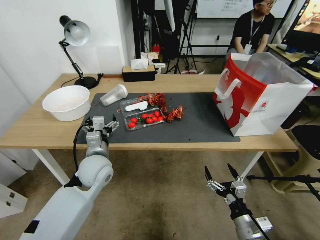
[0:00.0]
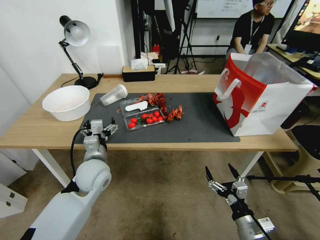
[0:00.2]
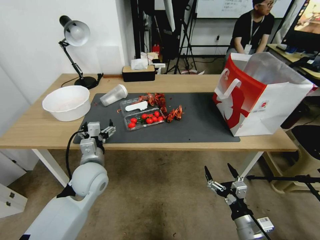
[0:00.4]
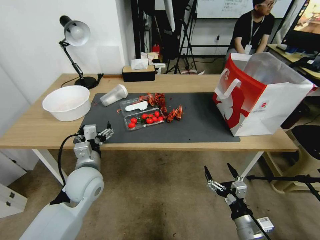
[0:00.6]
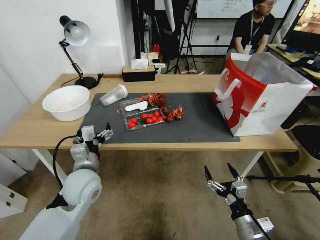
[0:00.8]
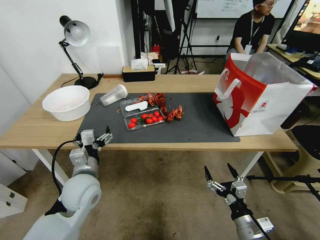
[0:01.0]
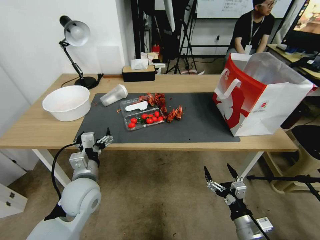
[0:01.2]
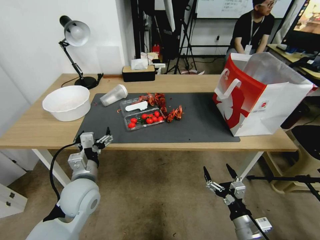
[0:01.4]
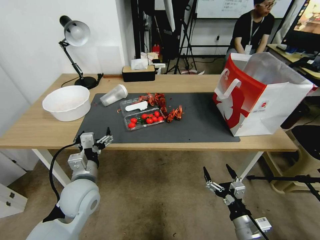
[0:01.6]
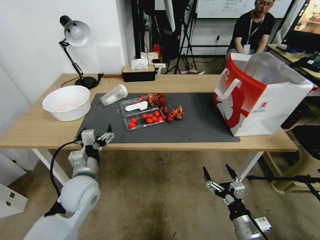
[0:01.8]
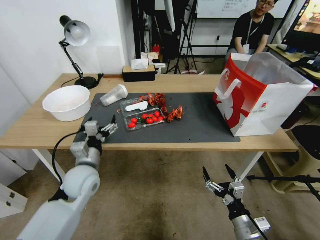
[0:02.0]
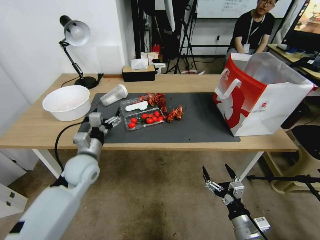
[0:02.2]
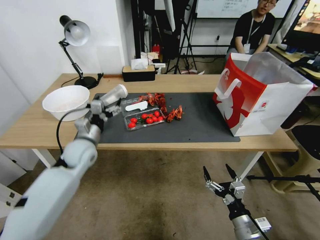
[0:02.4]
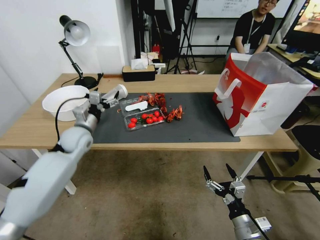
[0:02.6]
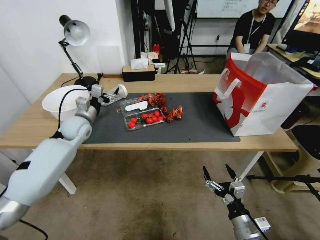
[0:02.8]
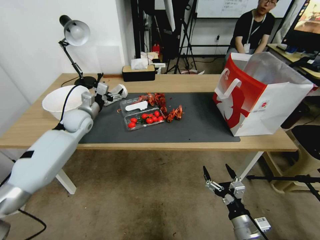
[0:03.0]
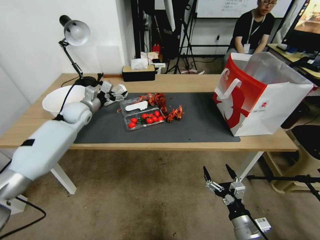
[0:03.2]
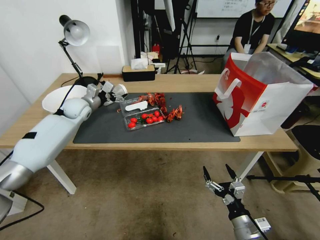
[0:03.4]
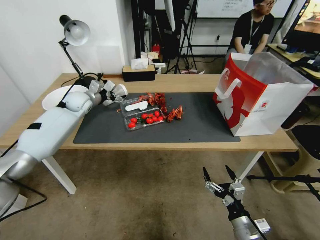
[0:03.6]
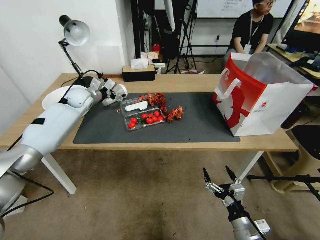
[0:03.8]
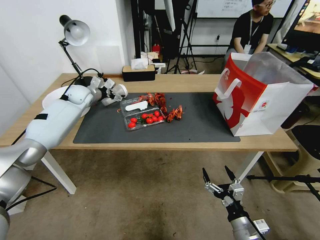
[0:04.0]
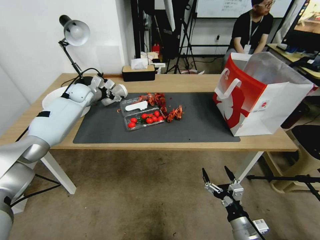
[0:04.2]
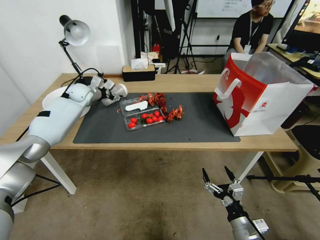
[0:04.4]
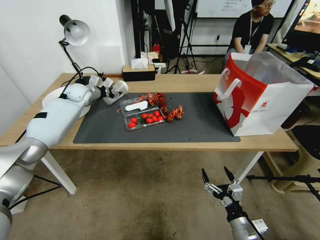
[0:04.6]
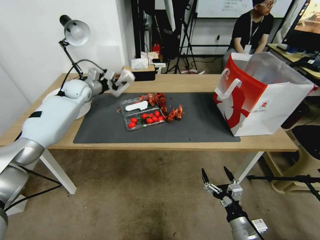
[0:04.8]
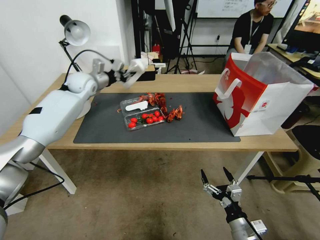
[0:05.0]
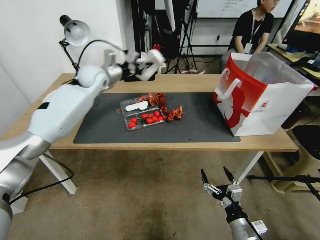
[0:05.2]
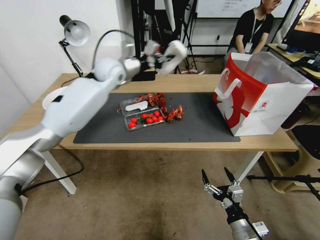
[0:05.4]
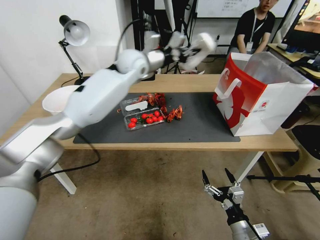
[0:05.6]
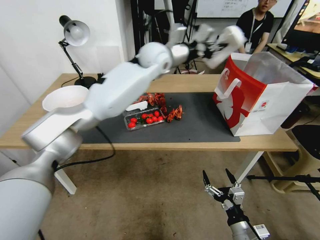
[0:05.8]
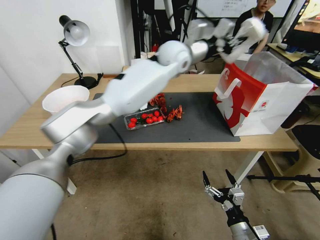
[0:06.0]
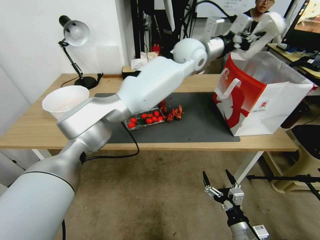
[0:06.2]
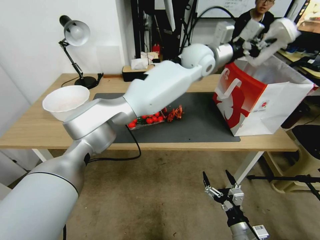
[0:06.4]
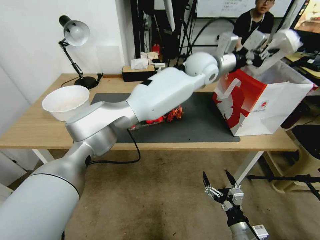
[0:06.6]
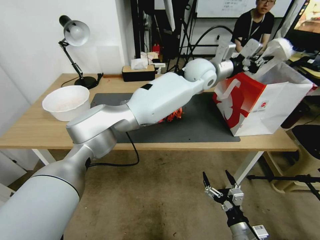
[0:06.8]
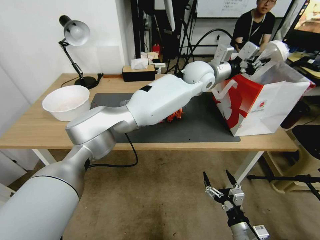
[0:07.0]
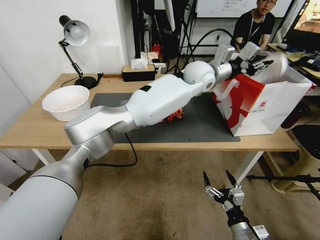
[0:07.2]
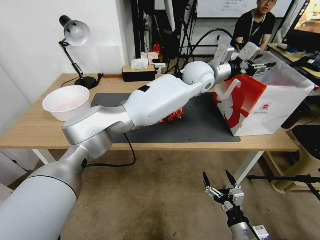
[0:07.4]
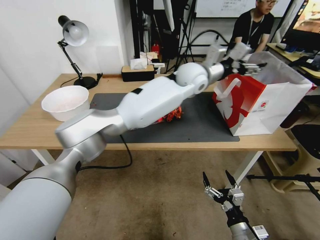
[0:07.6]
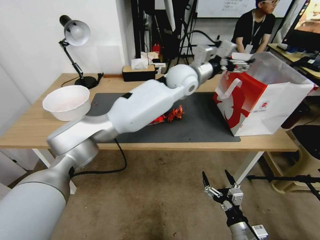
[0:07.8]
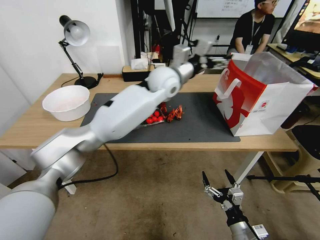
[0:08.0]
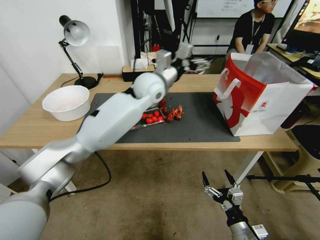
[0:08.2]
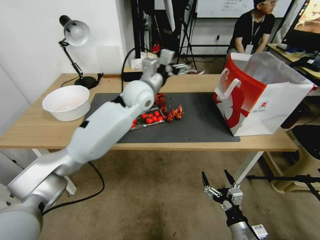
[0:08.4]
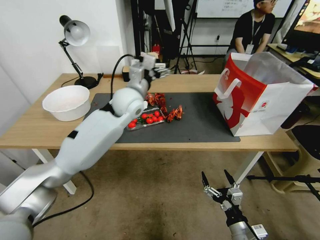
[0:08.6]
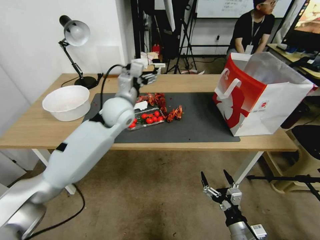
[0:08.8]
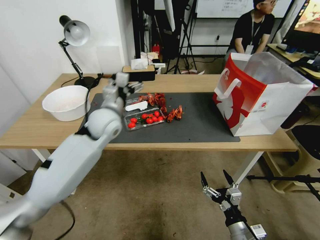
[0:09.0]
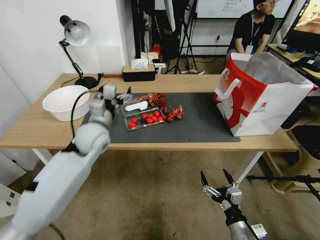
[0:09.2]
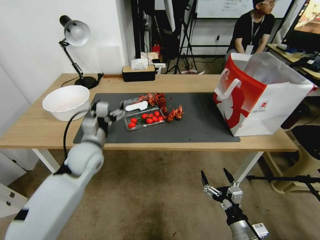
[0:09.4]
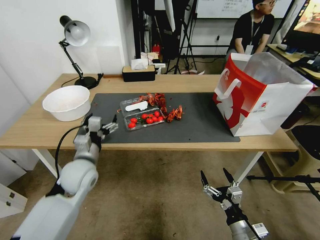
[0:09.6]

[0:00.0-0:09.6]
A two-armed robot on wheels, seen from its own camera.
0:00.0 to 0:01.6: The left gripper goes about 10 cm backward.
0:01.6 to 0:03.2: The left gripper heads forward, covering approximately 30 cm.
0:03.2 to 0:04.8: The left gripper is displaced forward by approximately 10 cm, and closes.
0:04.8 to 0:06.4: The left gripper moves to the right, roughly 40 cm.
0:06.4 to 0:08.0: The left gripper travels downward by approximately 5 cm, and opens up.
0:08.0 to 0:09.6: The left gripper shifts approximately 40 cm to the left, backward and downward.

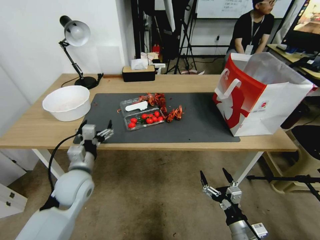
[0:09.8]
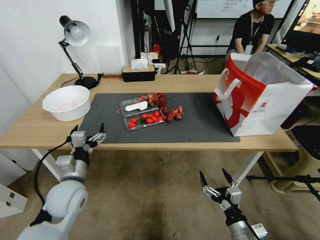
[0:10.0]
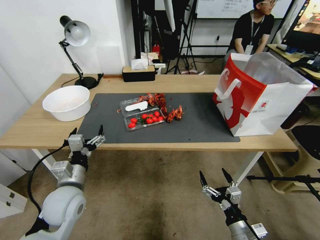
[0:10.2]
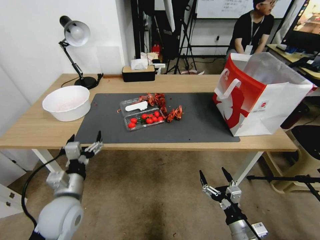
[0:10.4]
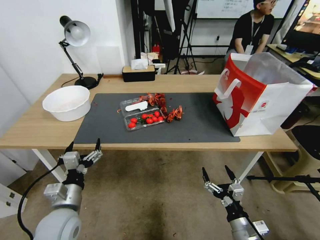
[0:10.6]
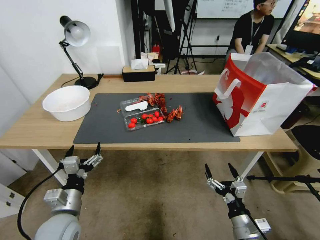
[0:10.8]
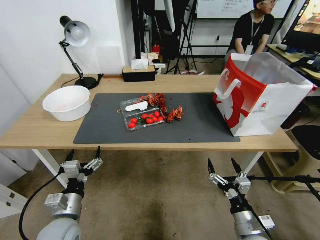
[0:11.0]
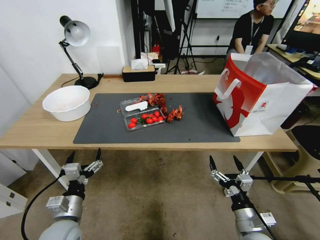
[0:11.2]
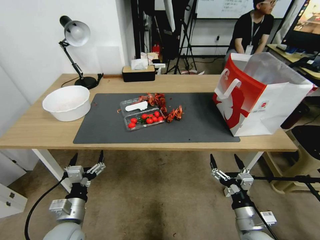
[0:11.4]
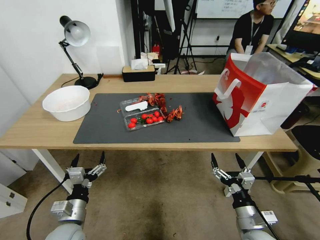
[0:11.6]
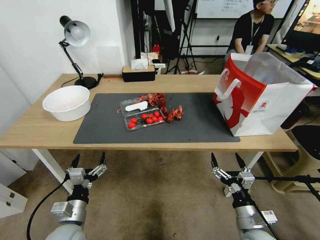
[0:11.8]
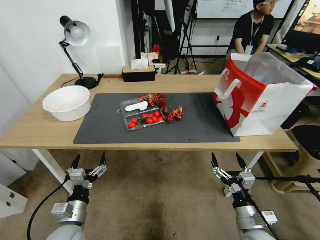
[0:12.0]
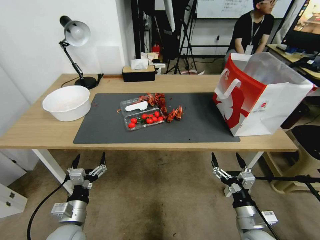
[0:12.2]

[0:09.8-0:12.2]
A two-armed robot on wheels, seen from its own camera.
0:09.8 to 0:11.0: The left gripper goes roughly 10 cm backward.
0:11.0 to 0:12.2: The left gripper goes about 5 cm downward.
